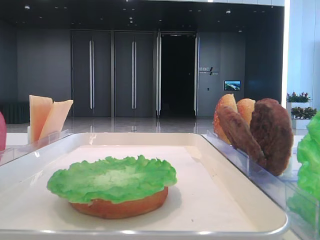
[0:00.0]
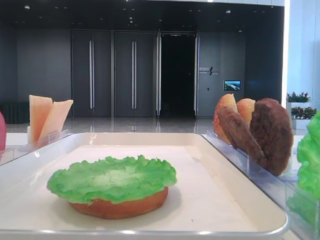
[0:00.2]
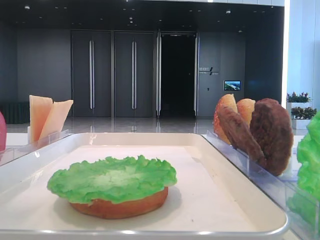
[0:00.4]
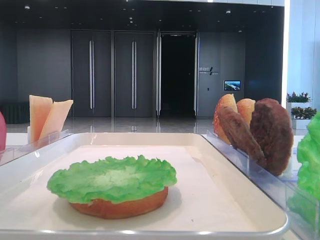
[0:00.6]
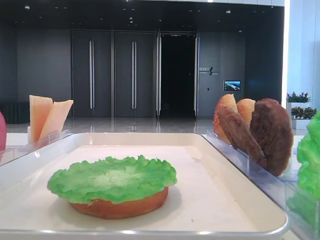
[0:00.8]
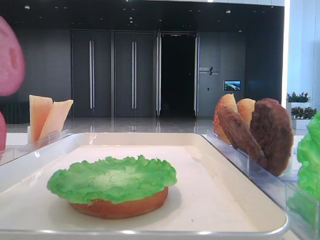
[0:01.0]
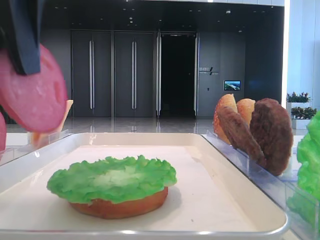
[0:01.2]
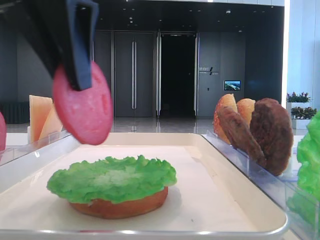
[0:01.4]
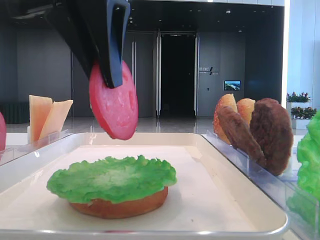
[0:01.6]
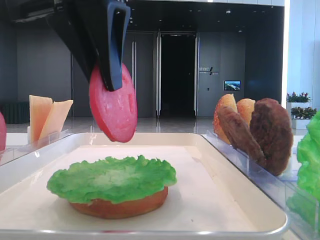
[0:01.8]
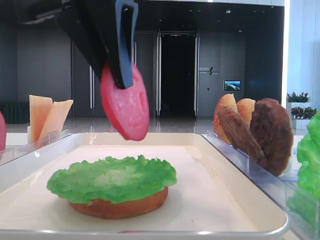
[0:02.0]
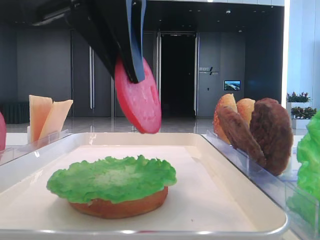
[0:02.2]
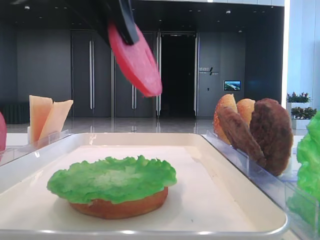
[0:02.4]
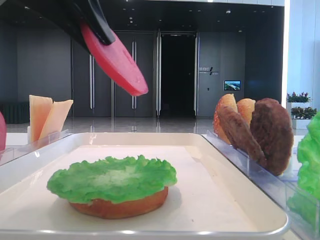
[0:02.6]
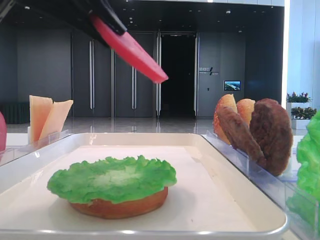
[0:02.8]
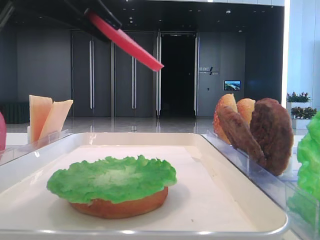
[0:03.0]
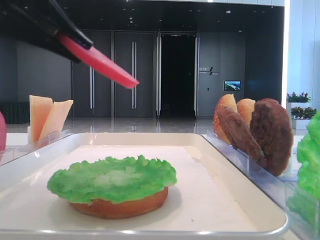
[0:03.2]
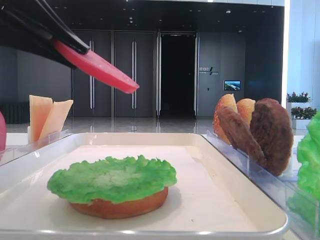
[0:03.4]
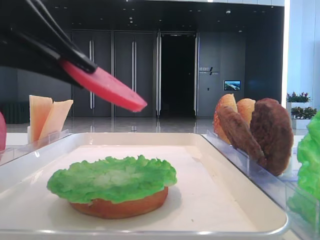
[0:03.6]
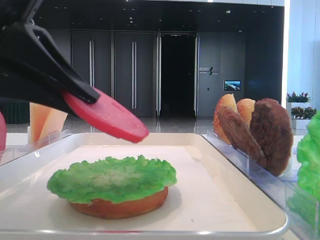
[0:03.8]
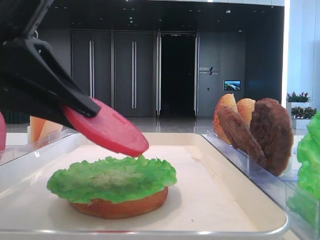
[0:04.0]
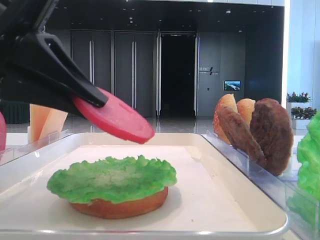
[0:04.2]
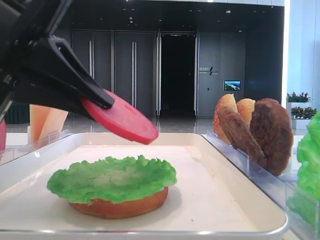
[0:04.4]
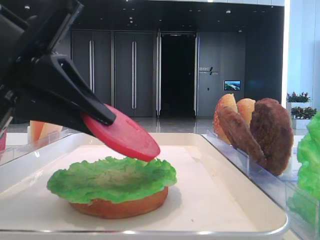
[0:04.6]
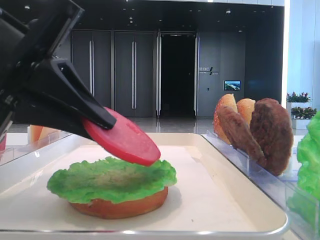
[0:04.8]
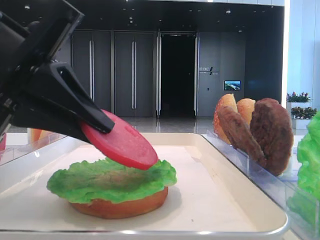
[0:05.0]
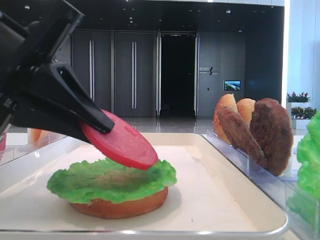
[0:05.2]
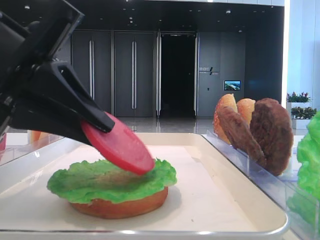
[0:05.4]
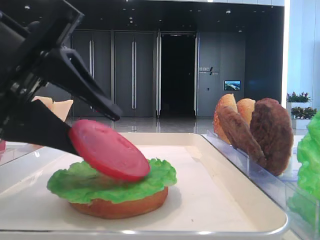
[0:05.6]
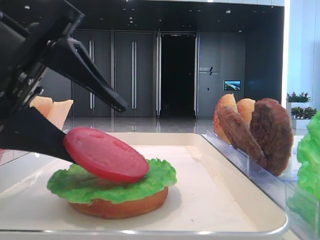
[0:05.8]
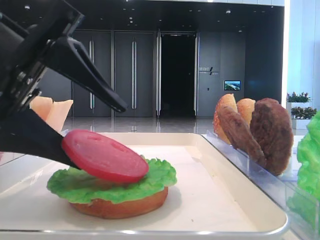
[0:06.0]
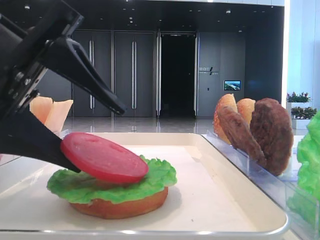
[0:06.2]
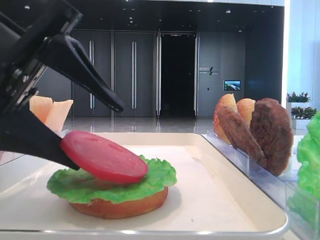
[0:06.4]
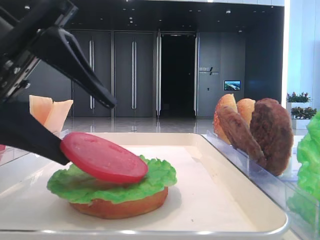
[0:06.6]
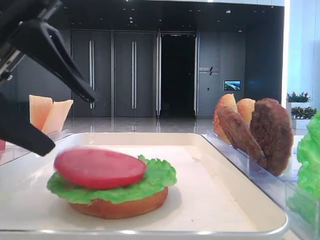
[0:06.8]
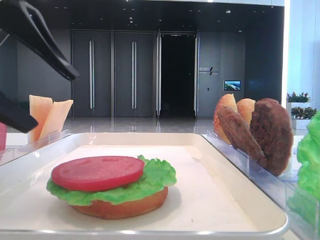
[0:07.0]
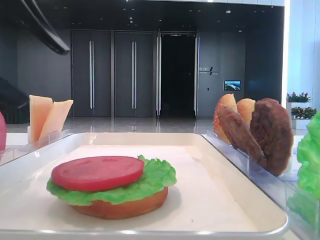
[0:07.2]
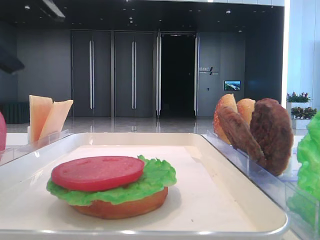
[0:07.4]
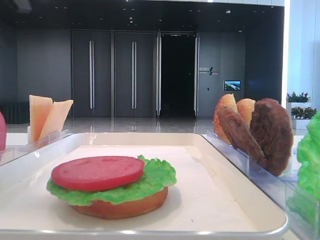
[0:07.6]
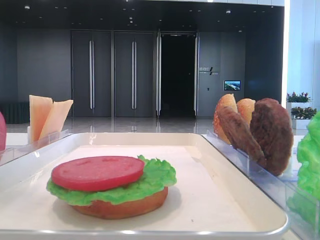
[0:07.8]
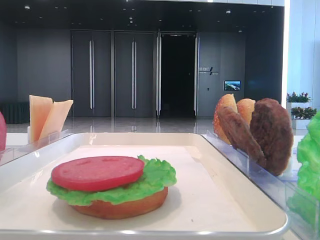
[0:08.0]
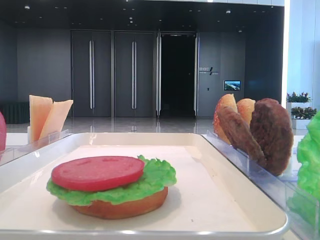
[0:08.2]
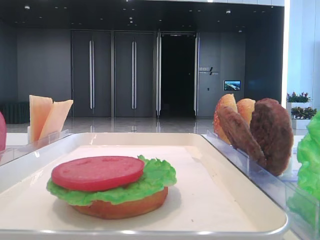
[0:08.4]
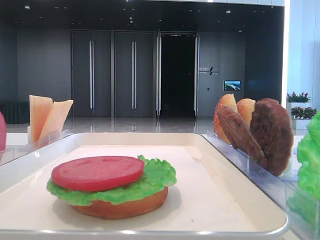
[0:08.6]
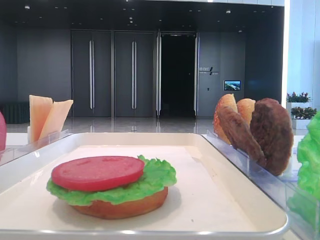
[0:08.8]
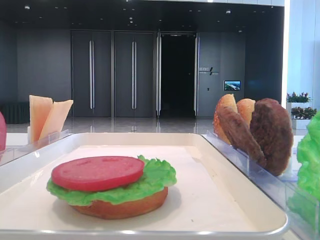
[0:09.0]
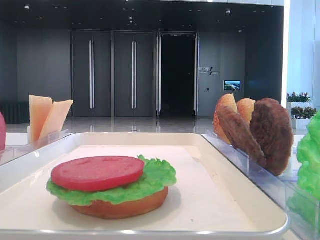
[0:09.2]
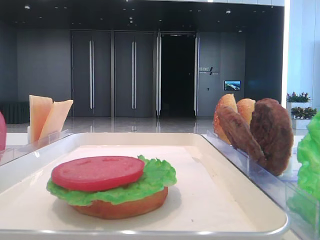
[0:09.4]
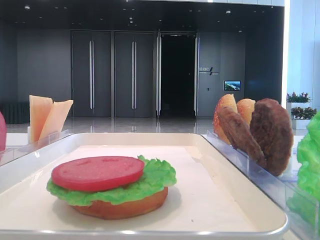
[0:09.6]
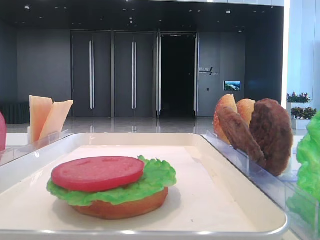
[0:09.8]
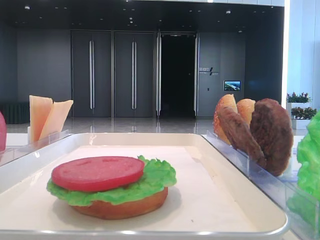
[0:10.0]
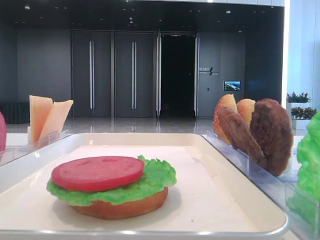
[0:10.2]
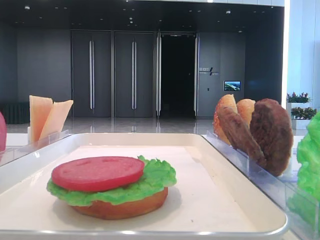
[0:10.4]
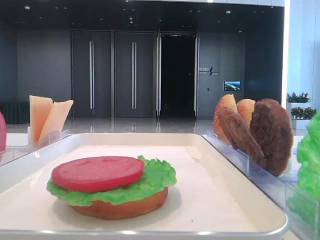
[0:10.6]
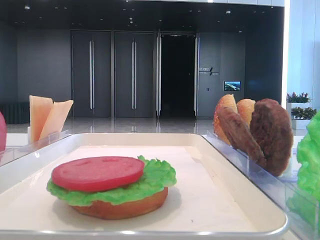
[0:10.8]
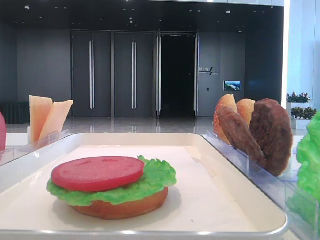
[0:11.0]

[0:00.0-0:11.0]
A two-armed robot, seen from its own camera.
Step, 0:00.0 to 0:06.6: Place the tomato slice on the lettuce leaf with the left hand.
0:00.0 to 0:01.6: The left gripper heads to the right and downward, covering about 15 cm.
0:01.6 to 0:03.2: The left gripper is displaced to the left by approximately 10 cm.
0:03.2 to 0:04.8: The left gripper is displaced downward by roughly 5 cm.
0:04.8 to 0:06.2: The left gripper opens.
0:06.2 to 0:07.8: The left gripper heads upward and to the left, covering about 20 cm.

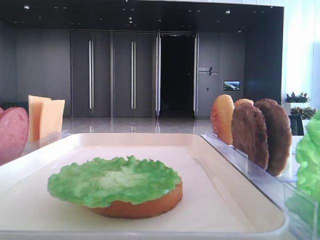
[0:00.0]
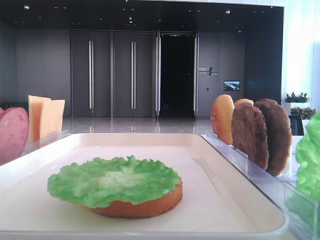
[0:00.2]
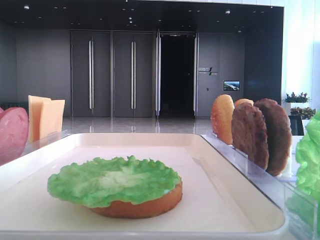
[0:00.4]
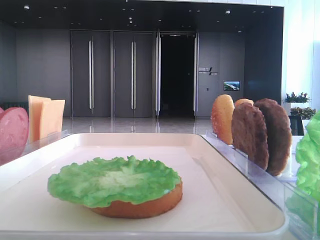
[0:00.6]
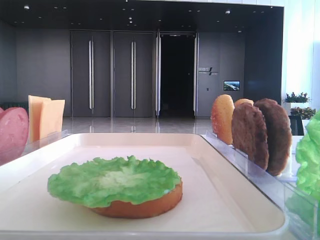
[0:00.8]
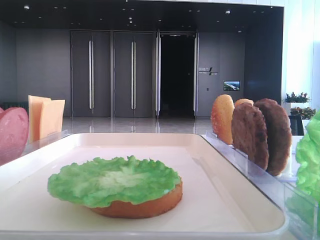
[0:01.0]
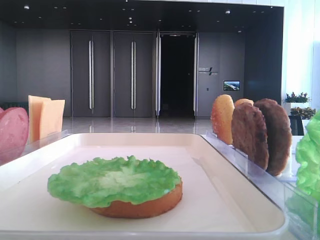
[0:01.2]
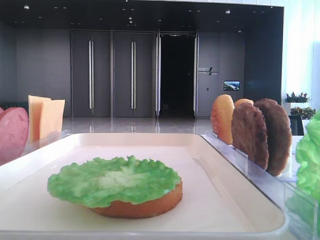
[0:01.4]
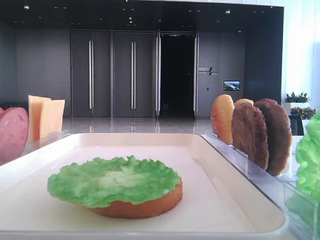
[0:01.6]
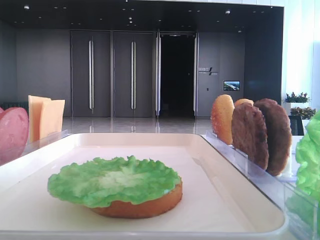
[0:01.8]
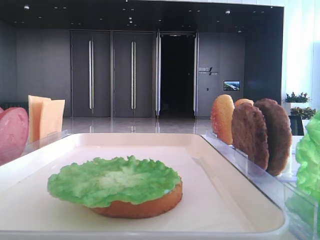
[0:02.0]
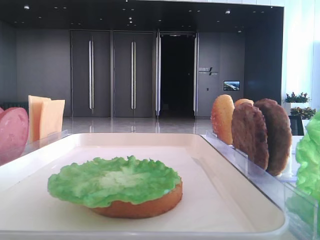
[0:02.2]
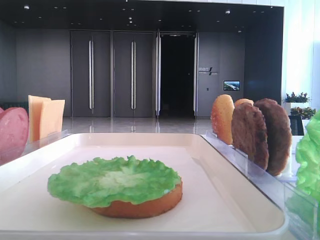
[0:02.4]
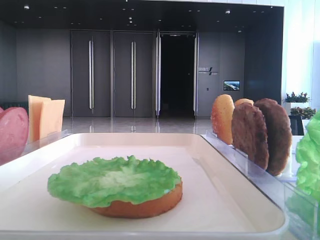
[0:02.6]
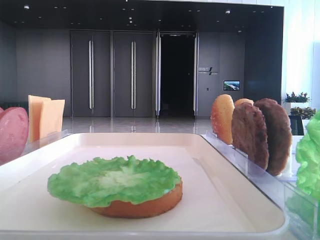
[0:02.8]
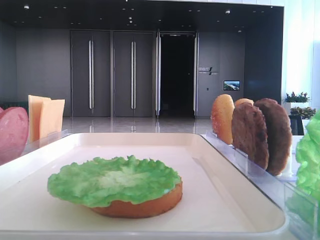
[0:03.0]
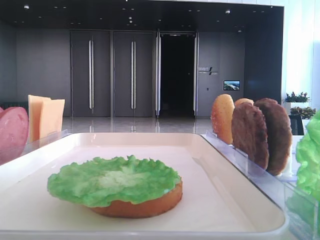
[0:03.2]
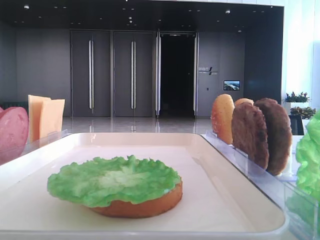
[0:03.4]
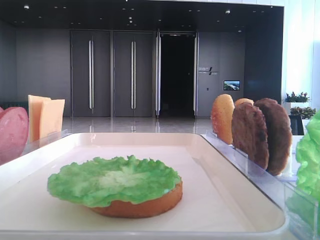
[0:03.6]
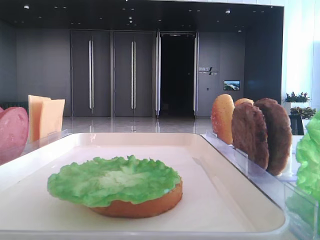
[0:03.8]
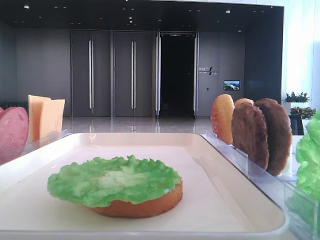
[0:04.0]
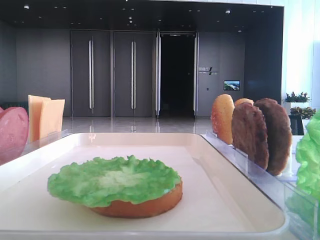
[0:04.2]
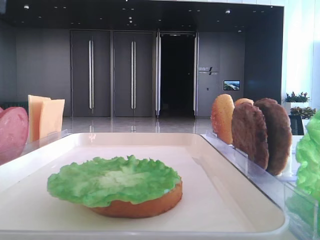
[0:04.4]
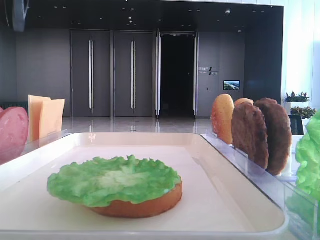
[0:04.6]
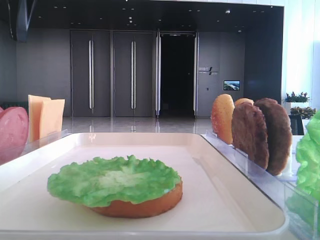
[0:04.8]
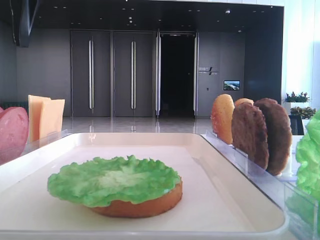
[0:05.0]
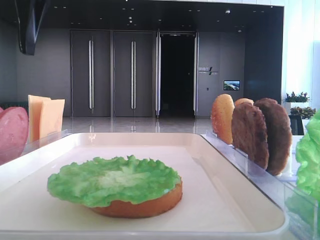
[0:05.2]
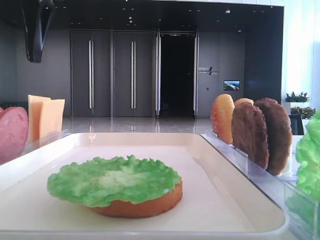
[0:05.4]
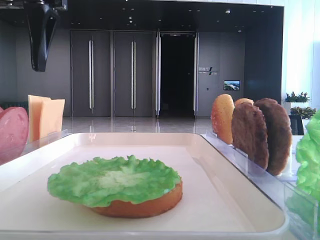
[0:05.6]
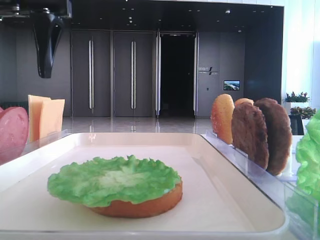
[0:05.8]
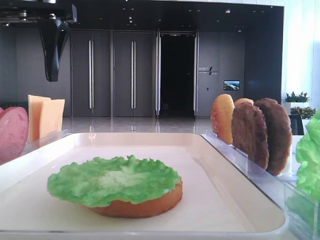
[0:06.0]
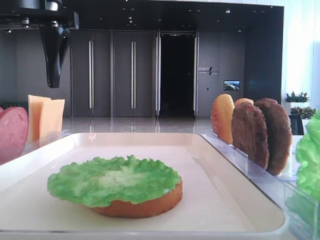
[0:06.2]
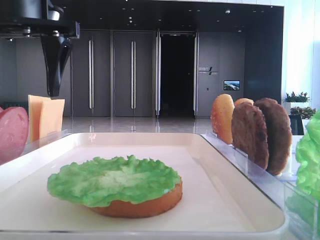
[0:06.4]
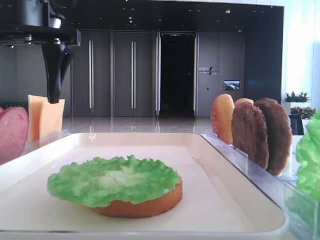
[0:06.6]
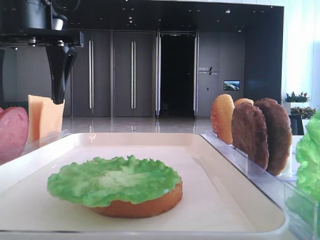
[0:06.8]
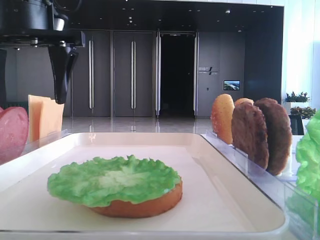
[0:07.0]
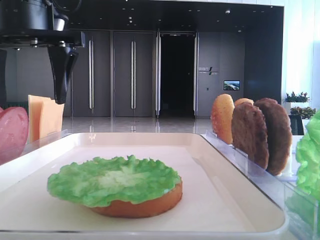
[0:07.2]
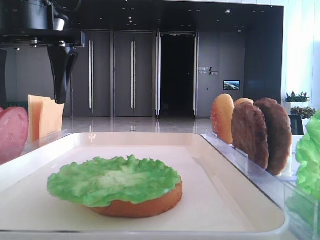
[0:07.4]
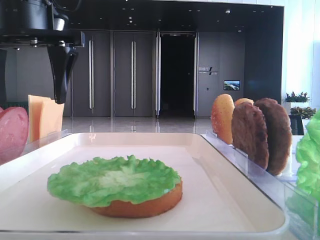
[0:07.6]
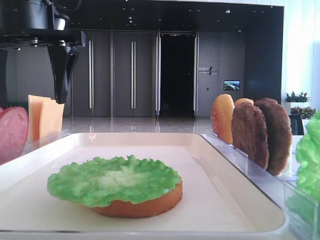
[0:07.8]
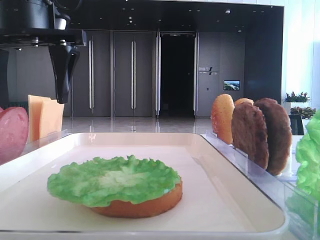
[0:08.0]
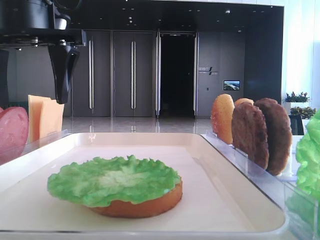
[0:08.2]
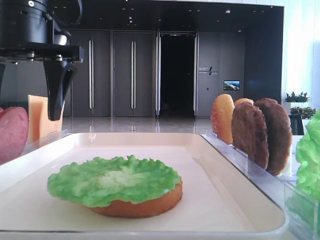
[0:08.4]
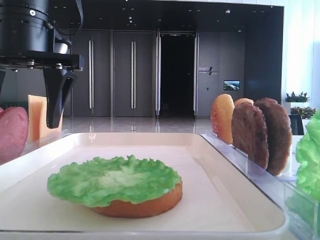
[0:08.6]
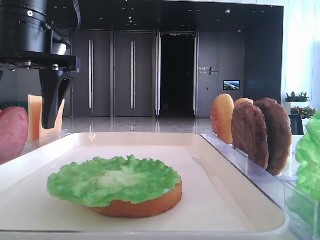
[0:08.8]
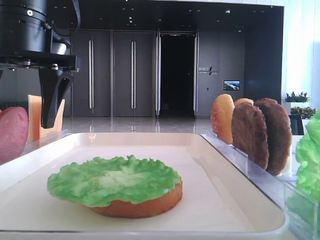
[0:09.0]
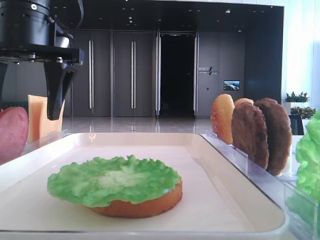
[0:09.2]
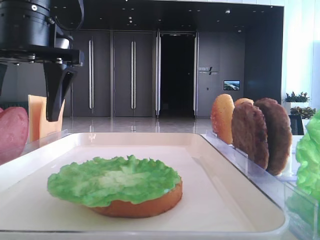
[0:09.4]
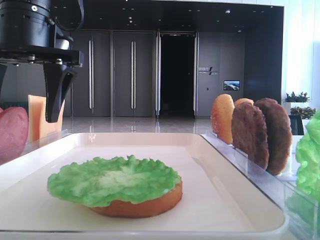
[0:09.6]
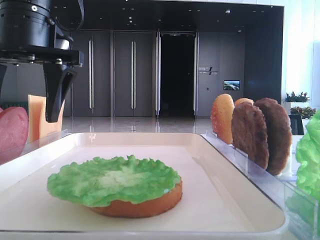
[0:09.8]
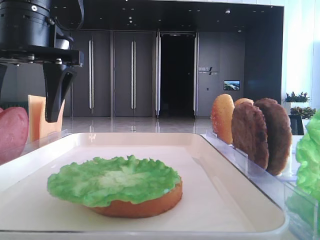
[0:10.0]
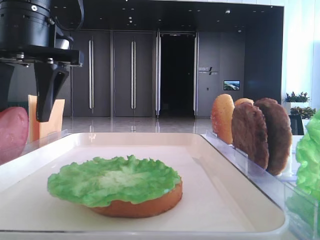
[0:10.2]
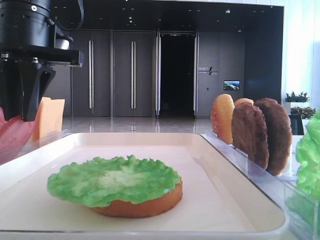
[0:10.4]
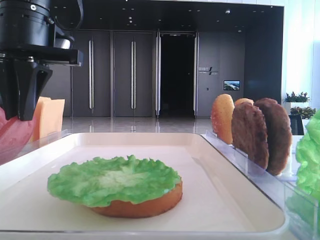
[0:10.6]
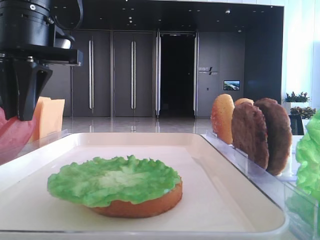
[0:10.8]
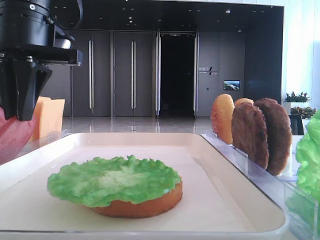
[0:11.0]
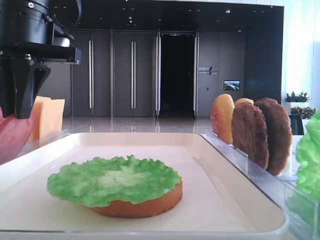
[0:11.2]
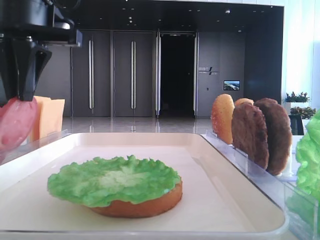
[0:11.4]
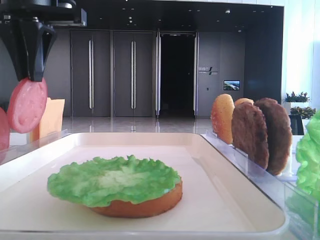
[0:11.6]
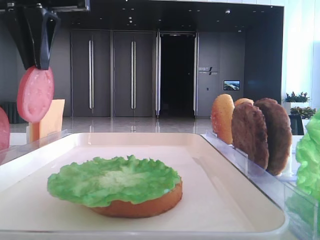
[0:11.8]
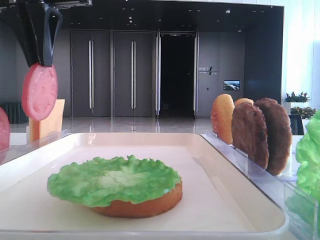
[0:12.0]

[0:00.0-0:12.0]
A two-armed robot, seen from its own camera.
Step, 0:00.0 to 0:11.0: Pick up the tomato slice with the left hand.
0:04.4 to 0:06.0: The left gripper goes approximately 5 cm downward.
0:06.0 to 0:09.0: The grippers stay close to where they were, moving slightly.
0:09.0 to 0:10.4: The left gripper closes its fingers.
0:10.4 to 0:12.0: The left gripper heads upward, covering roughly 5 cm.
